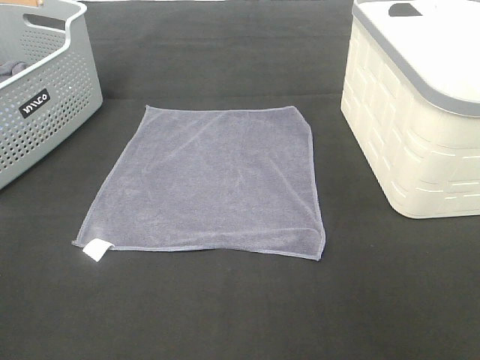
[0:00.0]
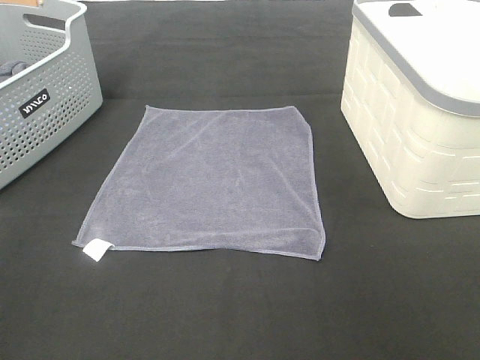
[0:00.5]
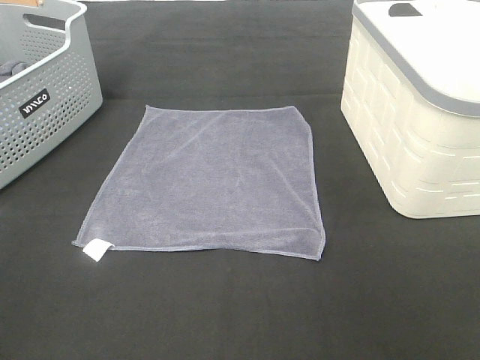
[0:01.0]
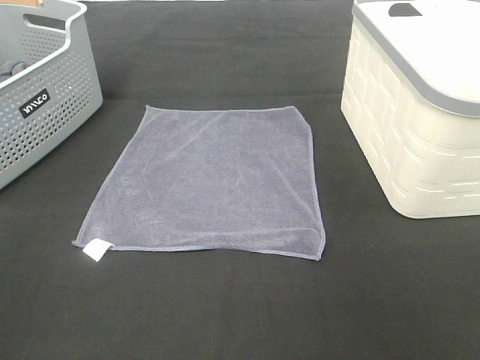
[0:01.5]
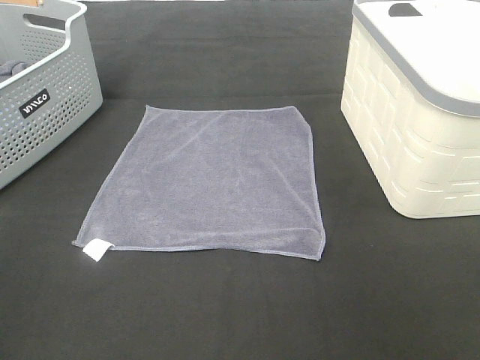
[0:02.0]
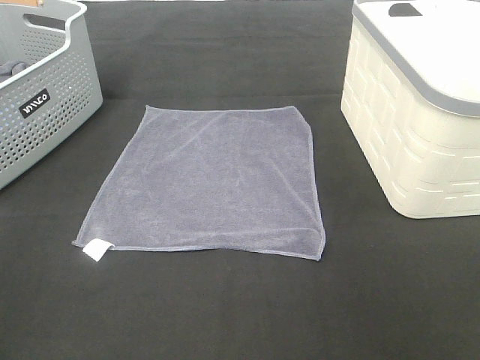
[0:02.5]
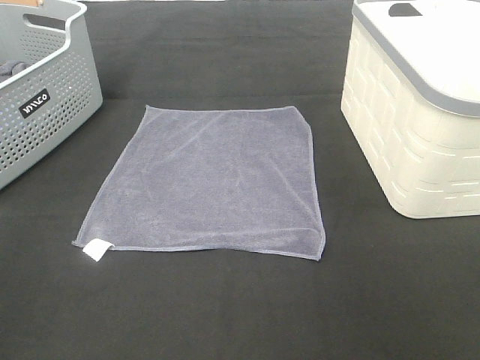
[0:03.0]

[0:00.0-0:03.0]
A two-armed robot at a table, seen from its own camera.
Task of the whole recording: Remove the towel and place it.
0:01.5 to 0:03.0: Both grippers stay put.

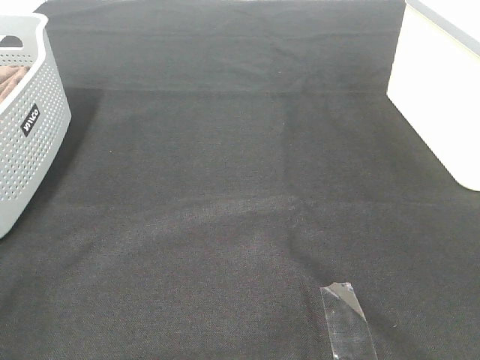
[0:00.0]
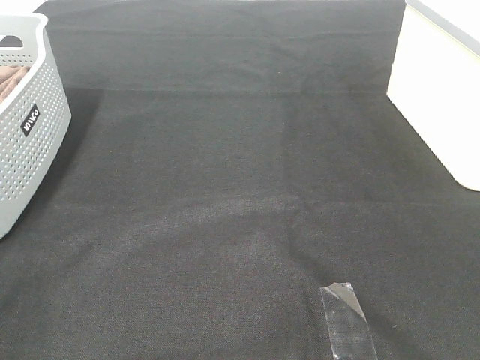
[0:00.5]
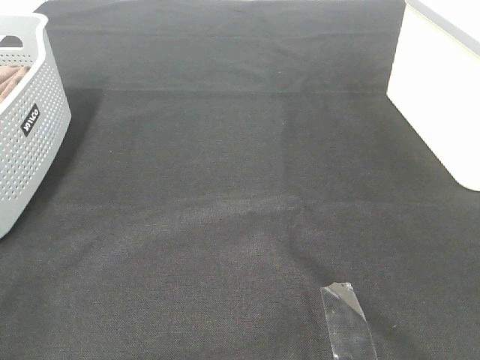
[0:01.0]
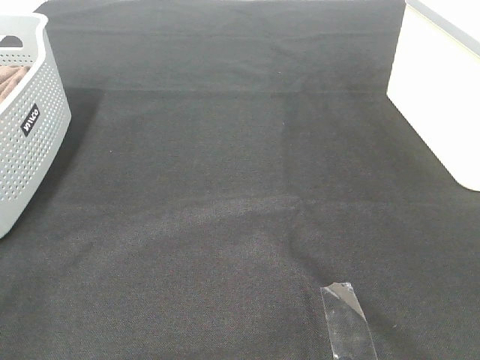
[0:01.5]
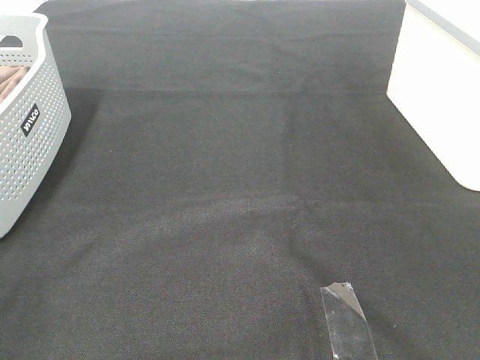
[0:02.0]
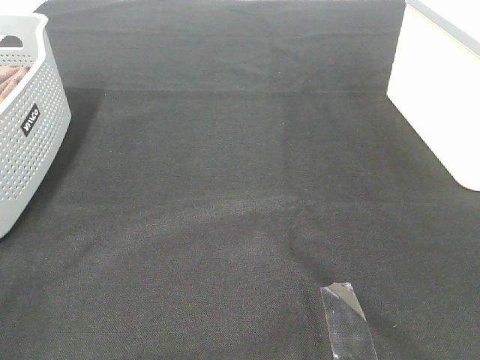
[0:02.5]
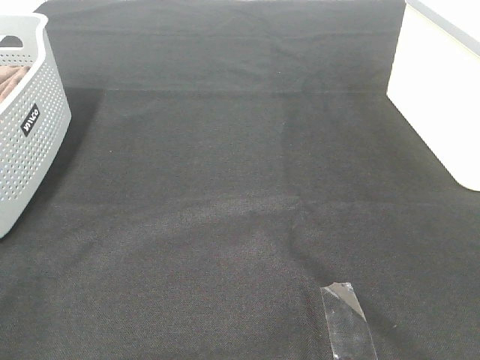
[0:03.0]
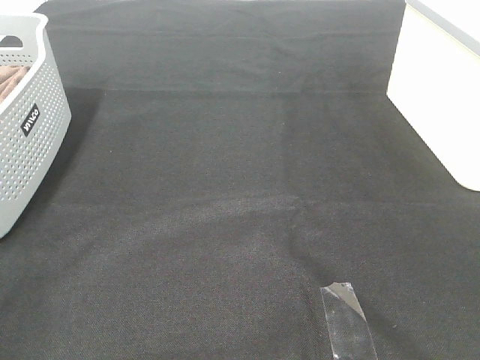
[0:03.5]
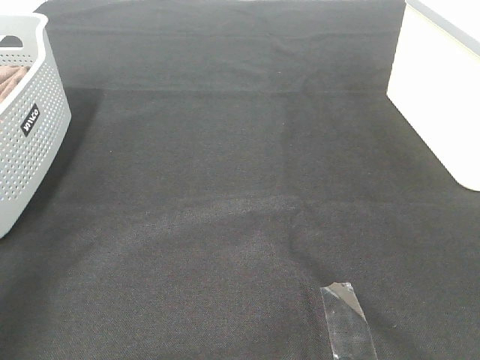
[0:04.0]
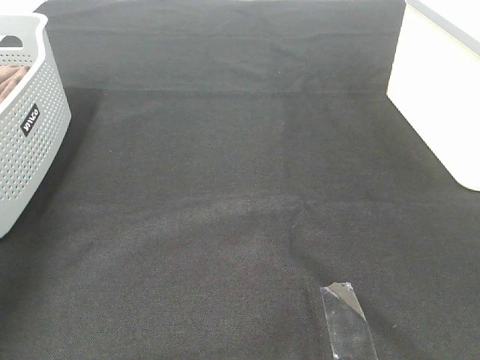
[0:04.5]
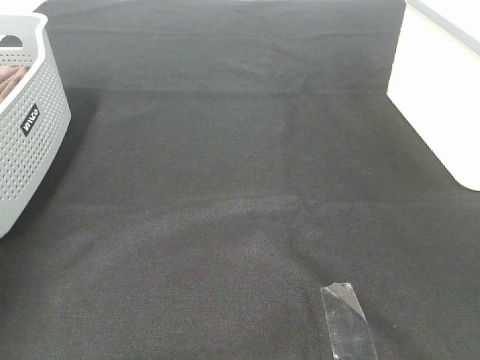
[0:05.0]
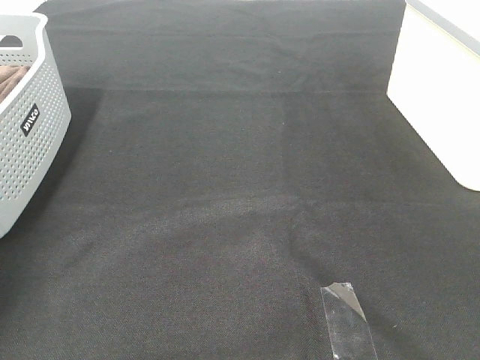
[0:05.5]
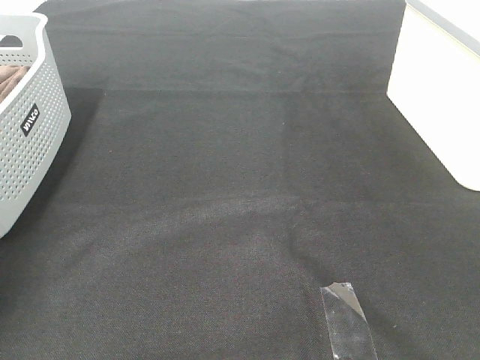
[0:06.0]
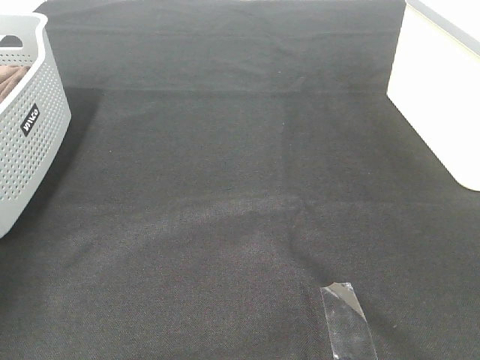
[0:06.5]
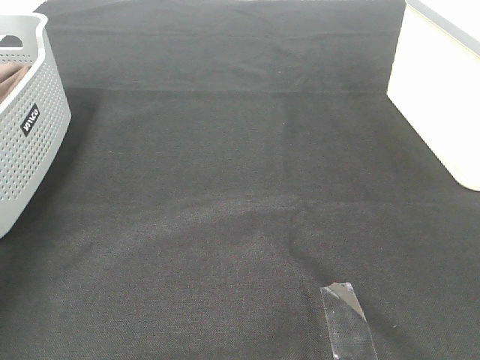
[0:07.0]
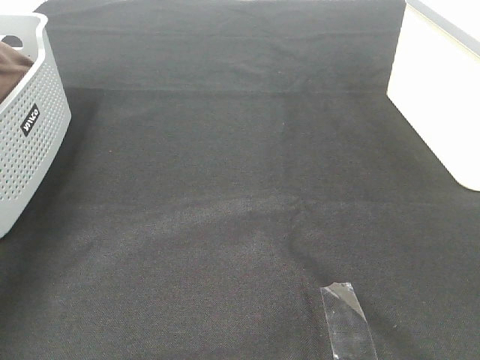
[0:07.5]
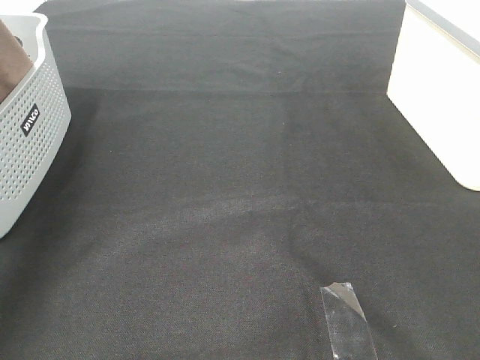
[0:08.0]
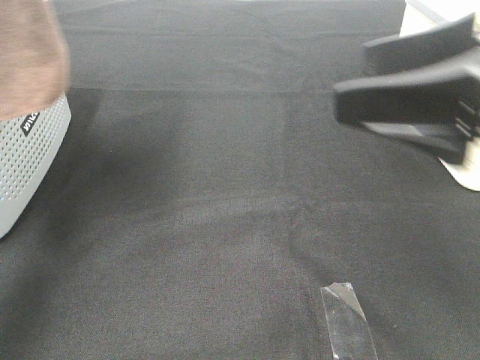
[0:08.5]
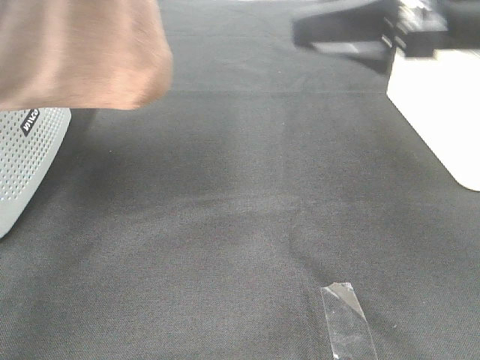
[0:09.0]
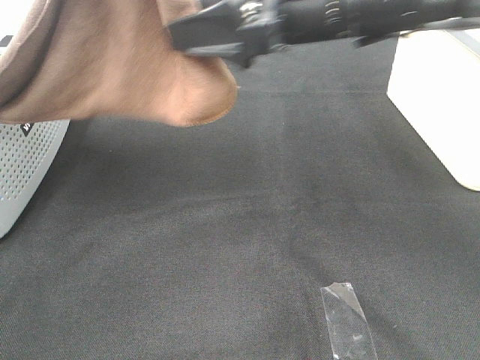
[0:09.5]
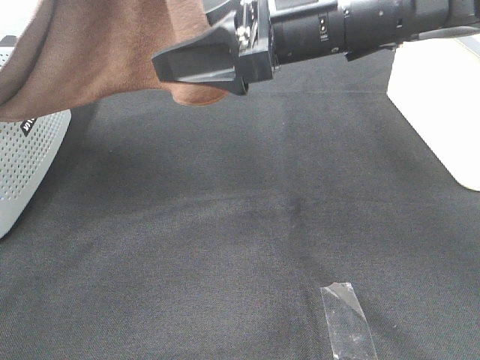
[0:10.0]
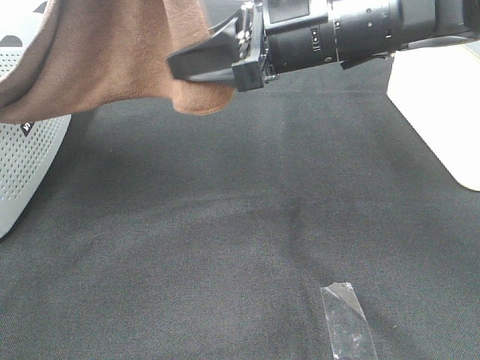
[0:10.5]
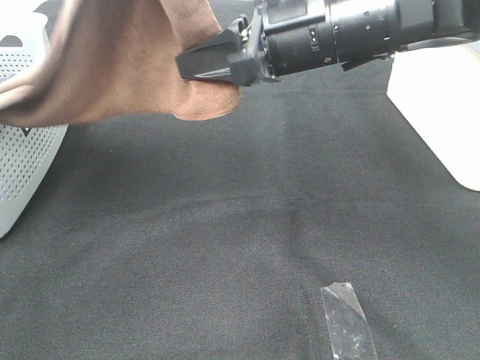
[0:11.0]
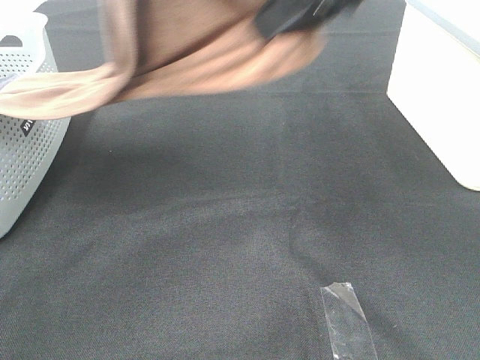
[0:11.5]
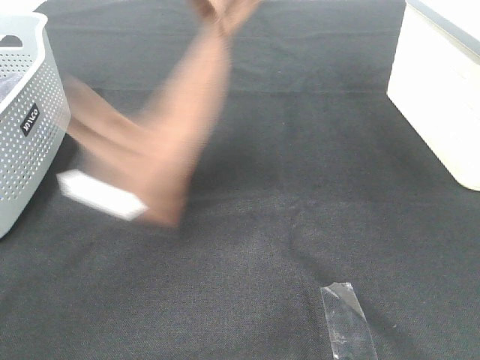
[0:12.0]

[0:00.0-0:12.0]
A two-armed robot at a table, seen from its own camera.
Task of the whole recording: Remove the towel and place it.
Step, 0:08.0 to 0:10.5: Right hand: grab a corner of the brown towel and straighten it.
0:00.0 to 0:02.0: Both grippers stay about where they are.
0:06.0 to 0:08.0: The left gripper travels upward and backward by approximately 35 cm.
0:08.0 to 0:10.0: The left gripper heads to the right, covering some 15 cm. Meanwhile the right gripper shifts roughly 30 cm forward and to the left.
0:10.0 to 0:12.0: The right gripper heads upward, covering some 20 cm, and closes up.

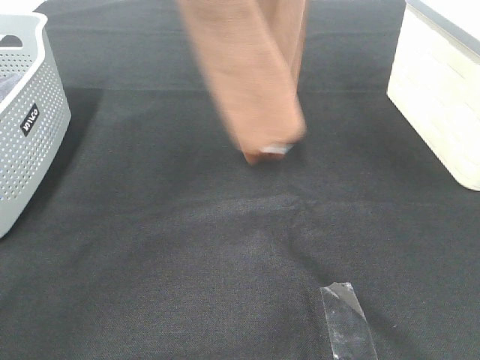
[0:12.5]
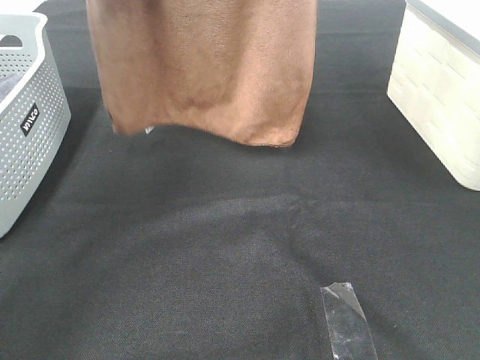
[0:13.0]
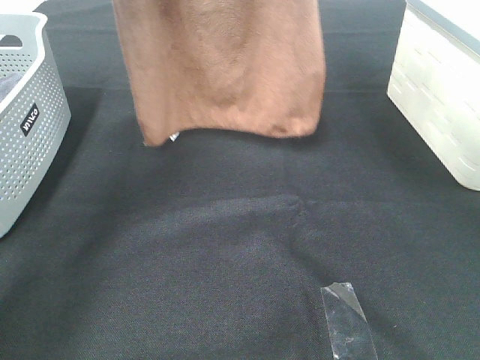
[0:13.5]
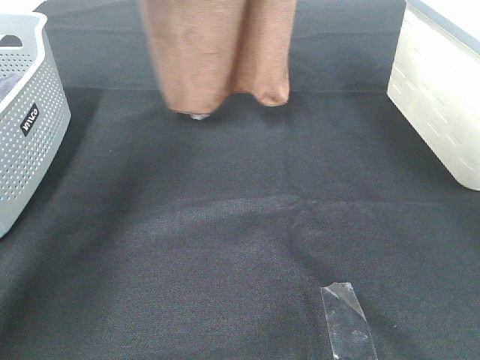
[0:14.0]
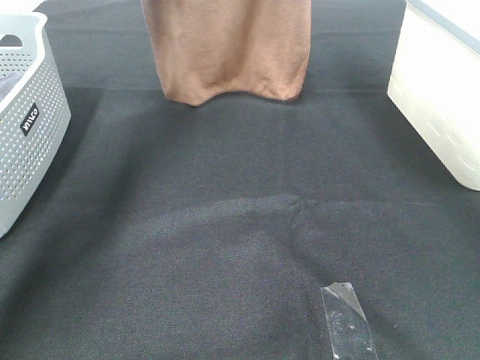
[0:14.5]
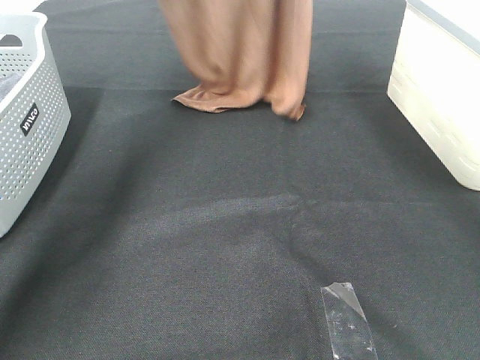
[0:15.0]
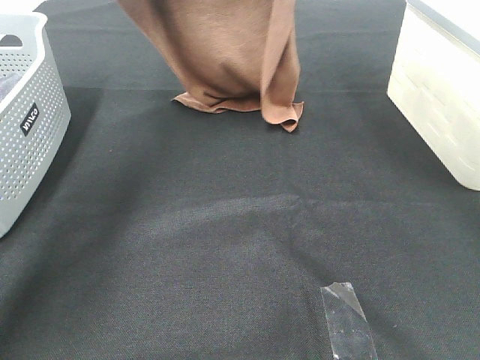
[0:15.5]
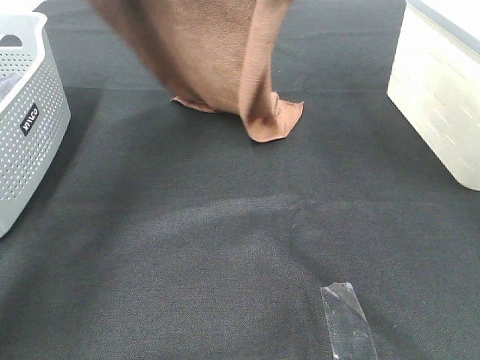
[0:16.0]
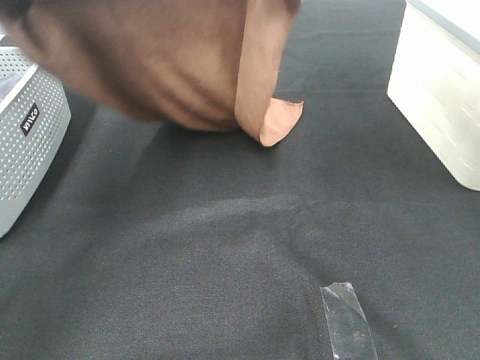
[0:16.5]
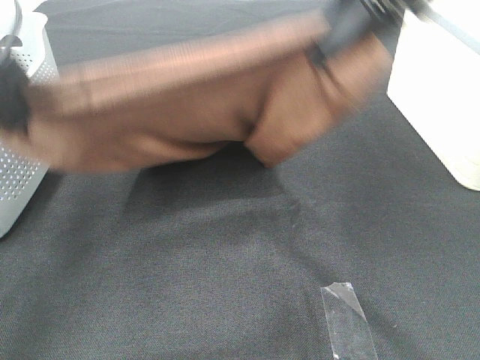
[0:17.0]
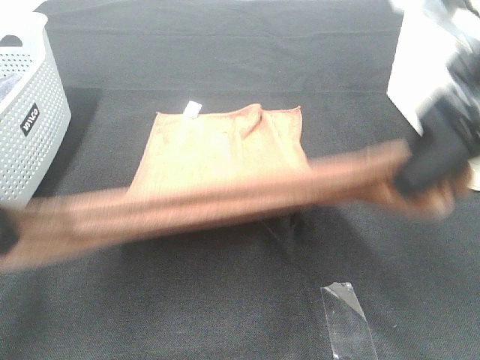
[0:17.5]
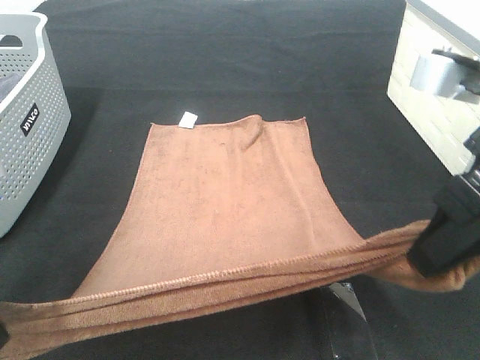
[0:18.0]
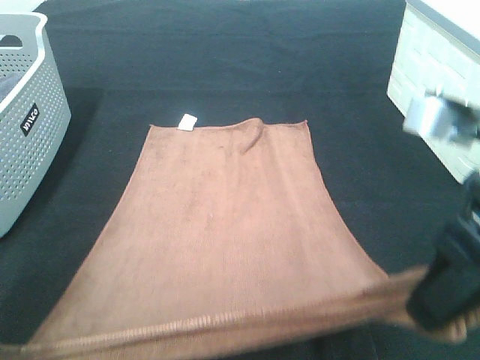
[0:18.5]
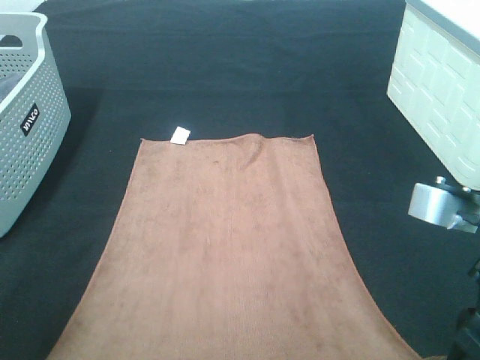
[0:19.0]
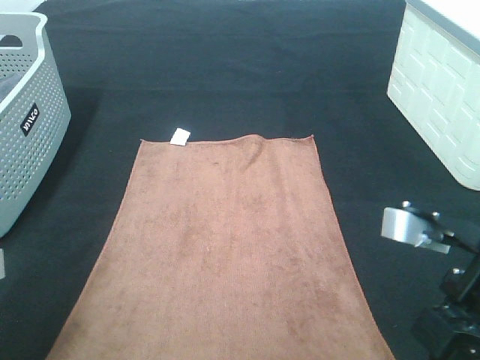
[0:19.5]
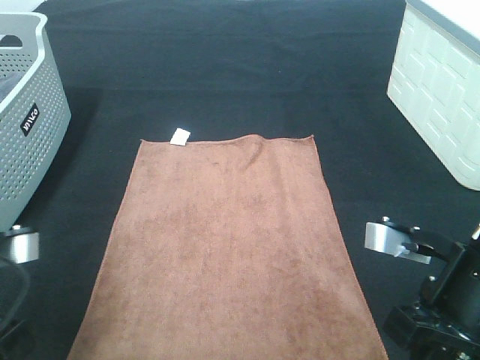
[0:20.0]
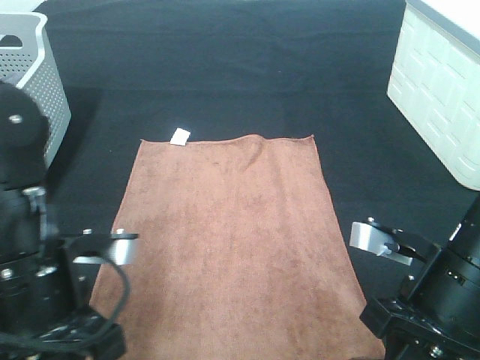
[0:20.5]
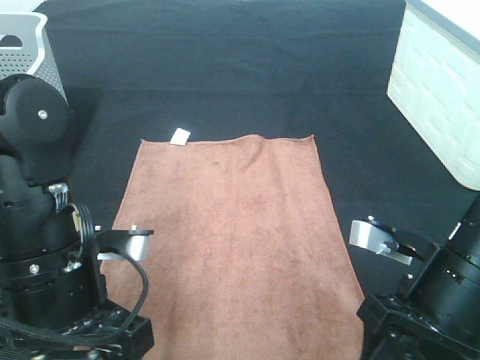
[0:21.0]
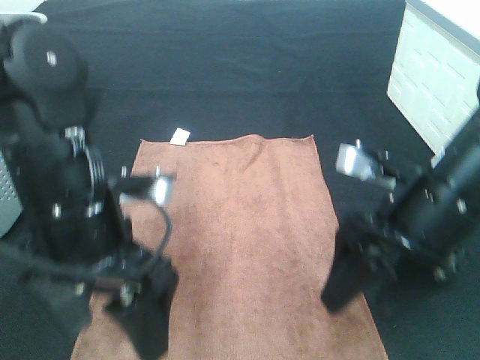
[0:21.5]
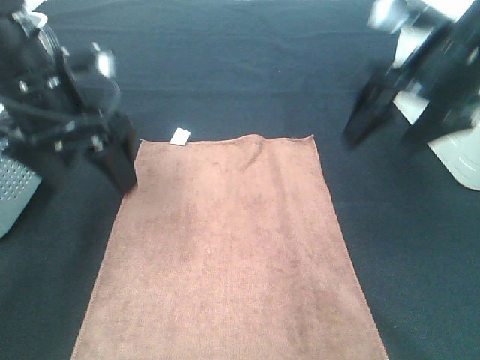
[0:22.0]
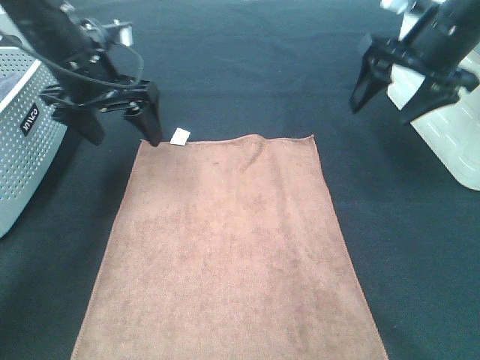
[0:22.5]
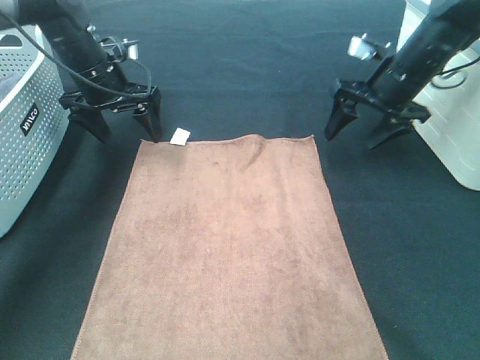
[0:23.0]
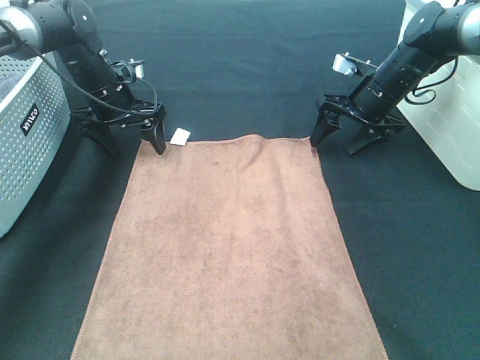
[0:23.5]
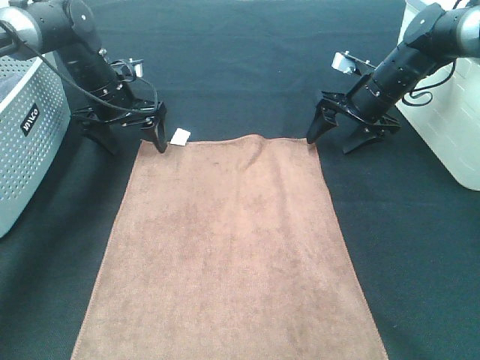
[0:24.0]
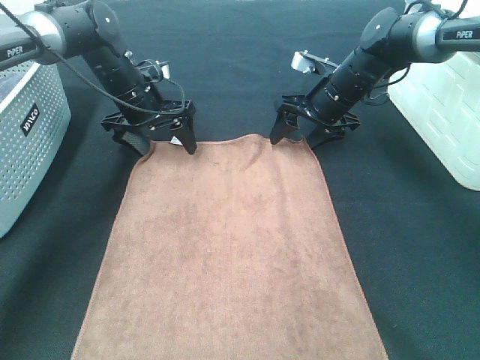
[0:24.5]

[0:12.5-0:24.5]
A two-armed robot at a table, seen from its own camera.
Task of the whole recording: Remove the towel and place it.
Step, 0:12.5 to 0:16.5: Left hand: spread the brown towel flat on the table.
Step, 0:12.5 to 0:16.5: Right hand: spread the brown towel flat on the table.
Step, 0:17.0 to 0:23.5: Left hand:adjust the brown towel.
Step, 0:17.0 to 0:23.5: Right hand:adjust the brown towel.
0:12.5 to 0:14.5: Both grippers travel together forward and downward, approximately 20 cm.
0:14.5 to 0:16.5: The left gripper moves backward, approximately 20 cm. The right gripper is displaced backward and downward by some 10 cm.
0:16.5 to 0:18.5: The grippers both shift backward and downward by roughly 25 cm.
0:18.5 to 0:20.5: The left gripper goes roughly 10 cm to the right and downward; the right gripper shifts roughly 10 cm downward.
0:20.5 to 0:22.5: The left gripper heads forward, covering some 25 cm, and opens its fingers, while the right gripper shifts about 25 cm forward and upward, and opens up.
0:22.5 to 0:24.5: The right gripper moves downward, forward and to the left, approximately 20 cm, while the left gripper is displaced downward and forward by about 10 cm.
